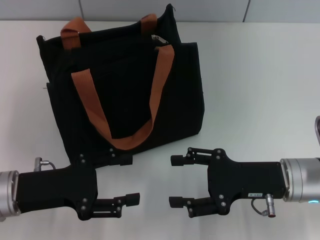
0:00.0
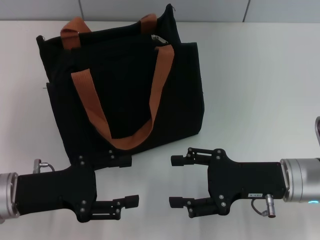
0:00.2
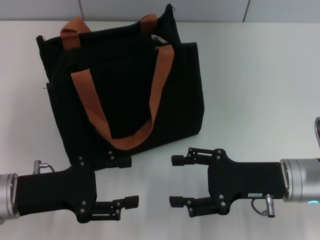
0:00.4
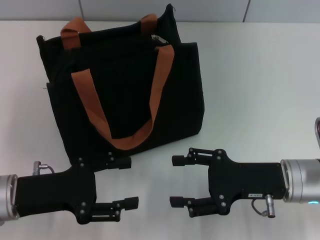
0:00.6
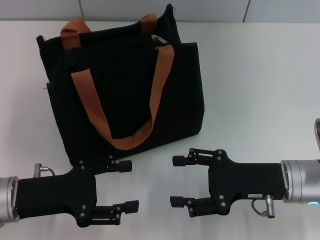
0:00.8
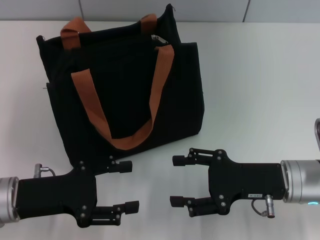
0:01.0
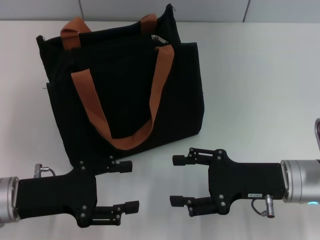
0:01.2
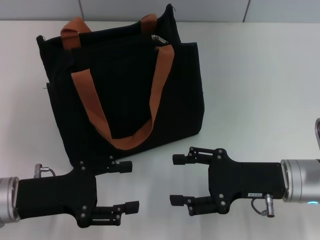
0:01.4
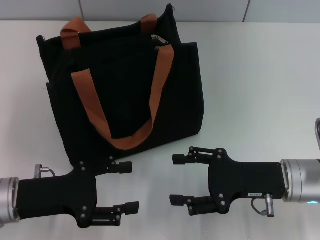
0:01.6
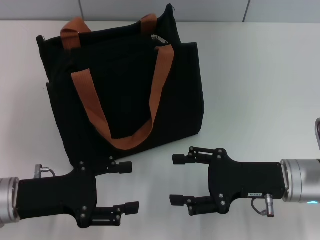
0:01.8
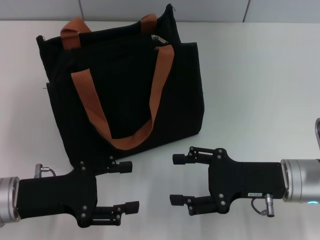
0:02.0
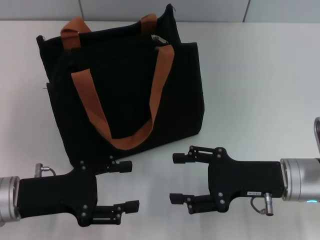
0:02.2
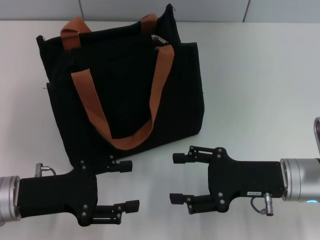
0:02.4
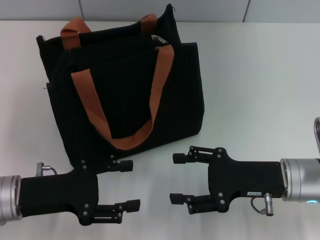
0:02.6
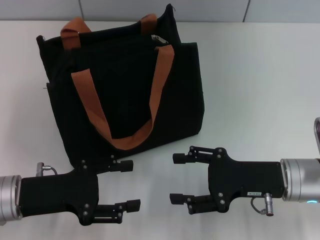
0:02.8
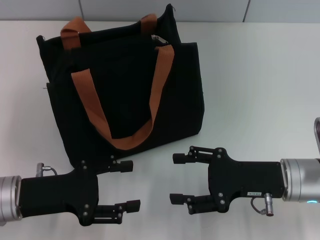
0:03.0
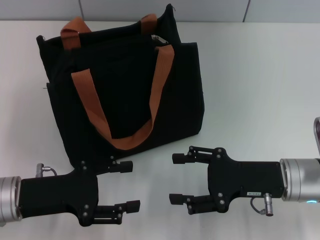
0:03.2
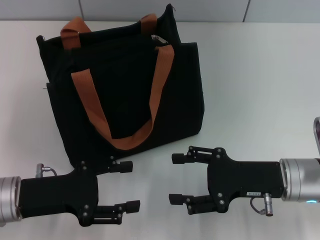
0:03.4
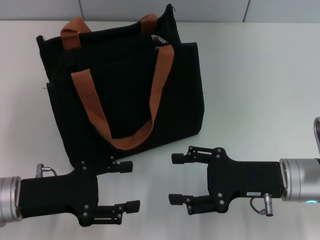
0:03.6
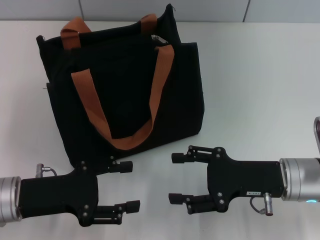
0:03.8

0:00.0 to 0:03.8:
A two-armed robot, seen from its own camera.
0:00.0 to 0:03.8: Both grippers stay about where they are.

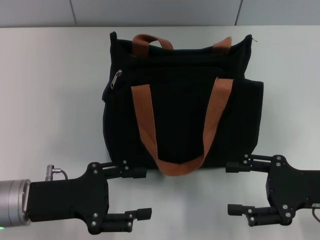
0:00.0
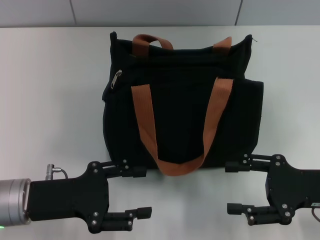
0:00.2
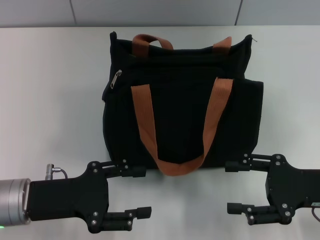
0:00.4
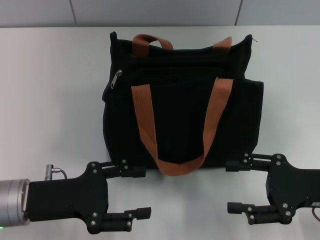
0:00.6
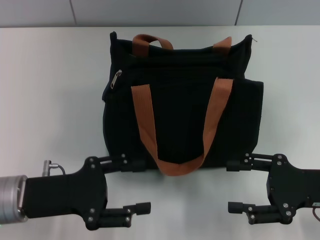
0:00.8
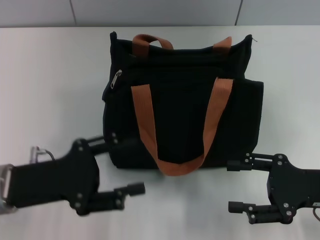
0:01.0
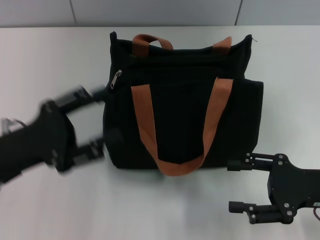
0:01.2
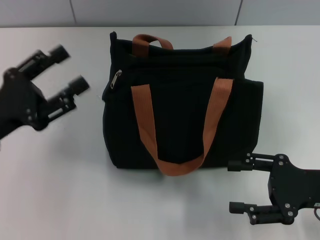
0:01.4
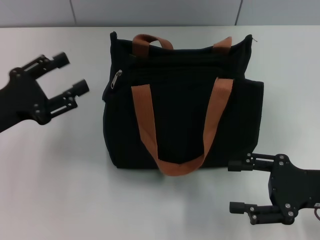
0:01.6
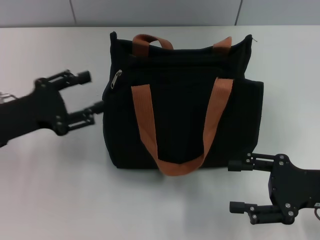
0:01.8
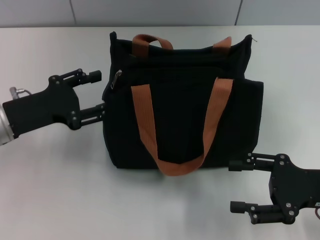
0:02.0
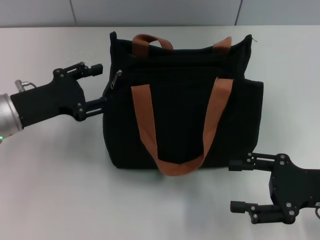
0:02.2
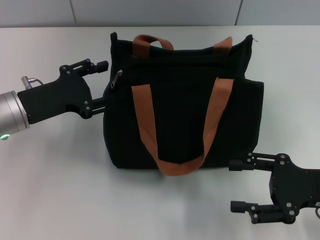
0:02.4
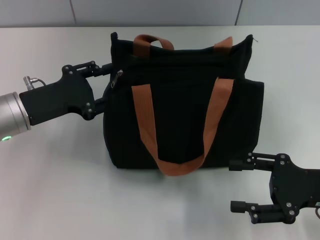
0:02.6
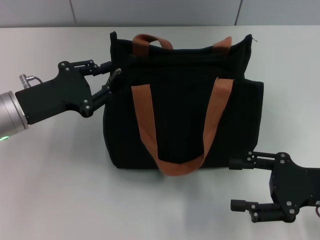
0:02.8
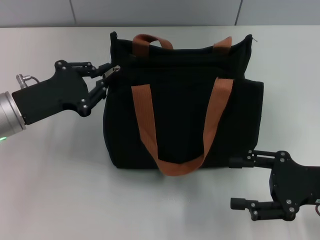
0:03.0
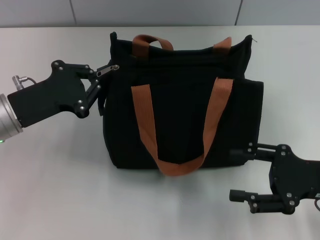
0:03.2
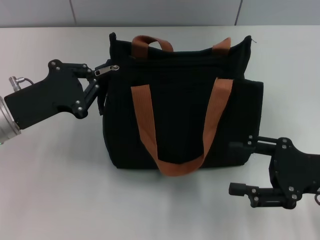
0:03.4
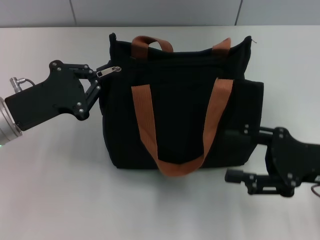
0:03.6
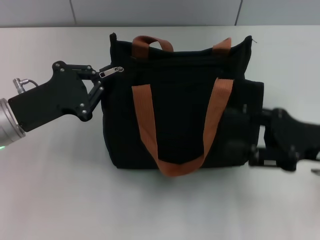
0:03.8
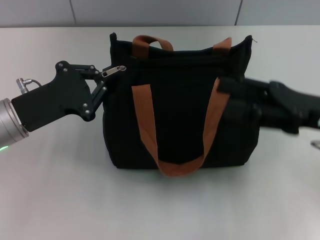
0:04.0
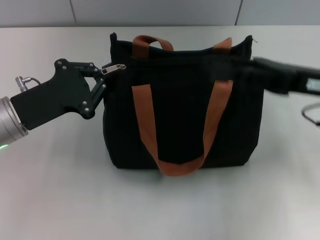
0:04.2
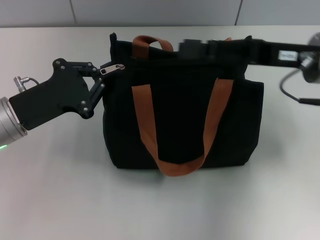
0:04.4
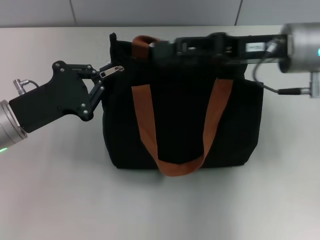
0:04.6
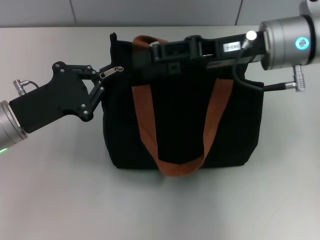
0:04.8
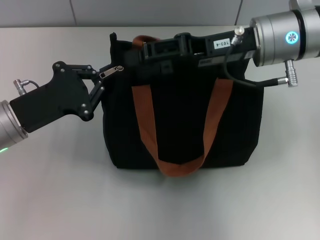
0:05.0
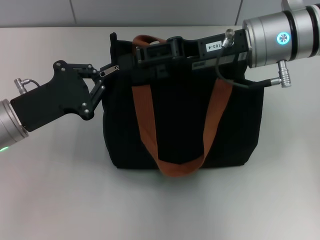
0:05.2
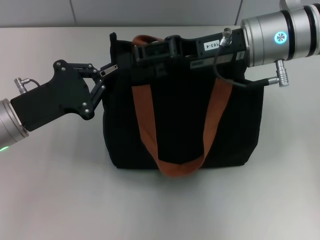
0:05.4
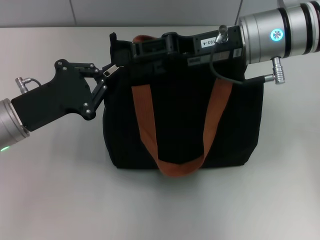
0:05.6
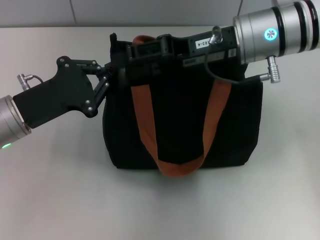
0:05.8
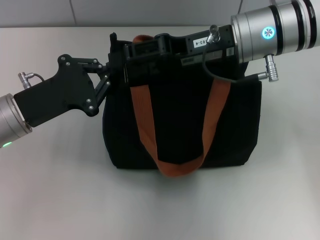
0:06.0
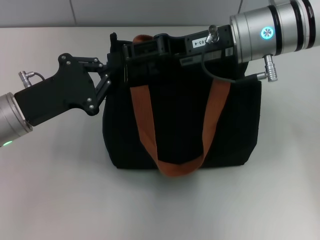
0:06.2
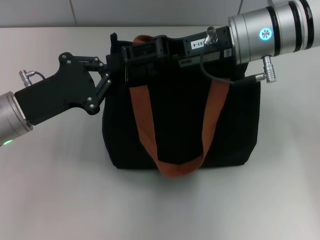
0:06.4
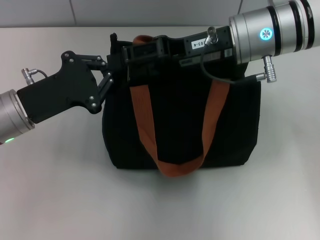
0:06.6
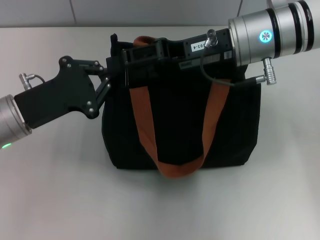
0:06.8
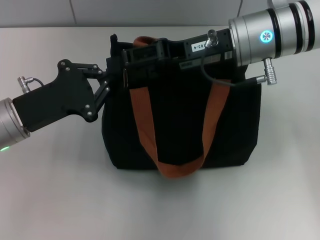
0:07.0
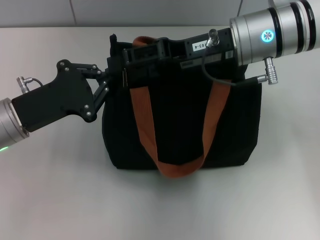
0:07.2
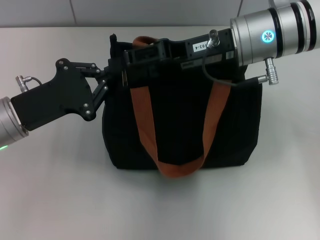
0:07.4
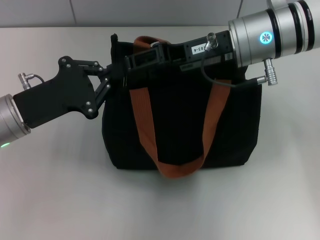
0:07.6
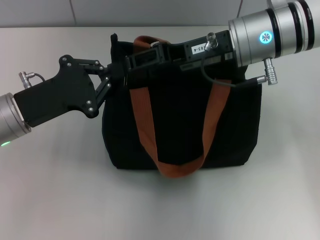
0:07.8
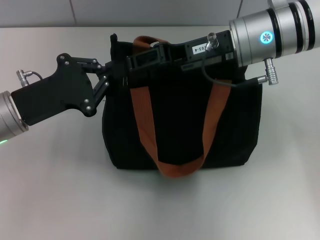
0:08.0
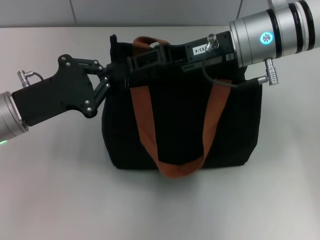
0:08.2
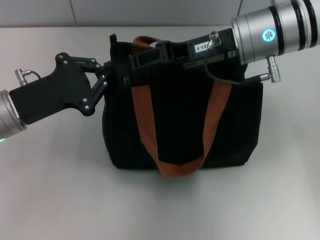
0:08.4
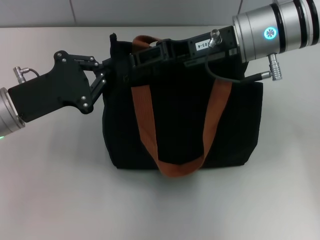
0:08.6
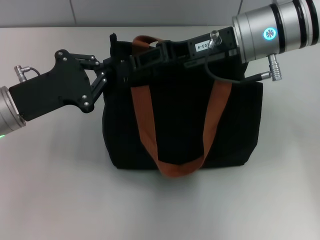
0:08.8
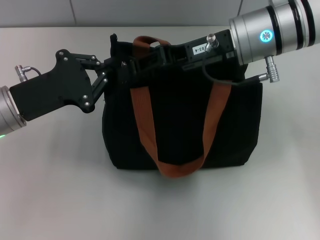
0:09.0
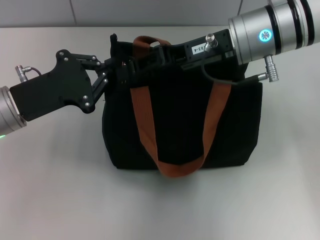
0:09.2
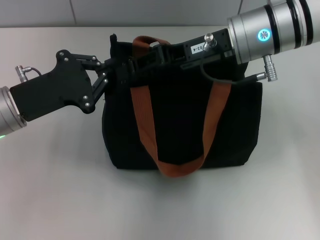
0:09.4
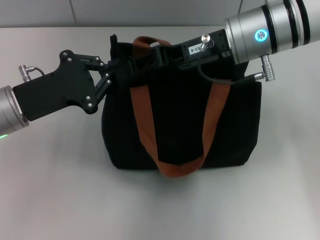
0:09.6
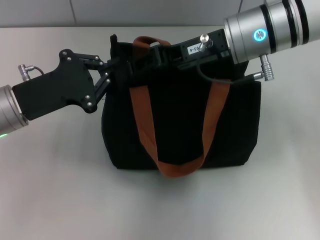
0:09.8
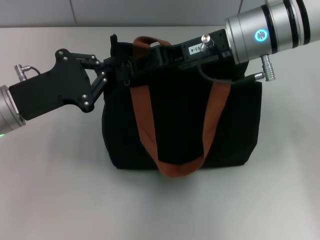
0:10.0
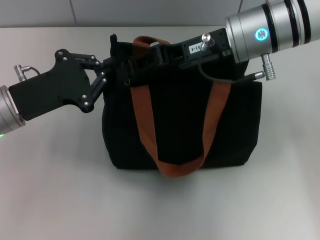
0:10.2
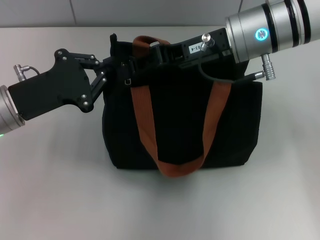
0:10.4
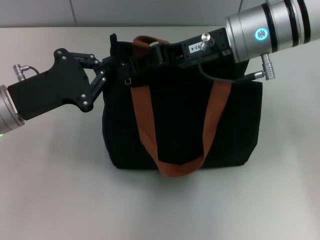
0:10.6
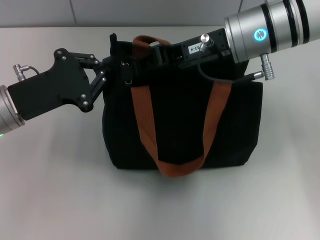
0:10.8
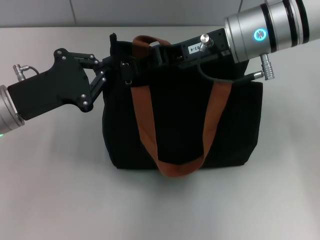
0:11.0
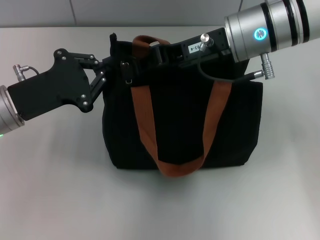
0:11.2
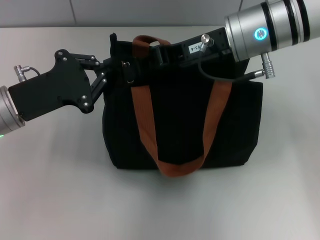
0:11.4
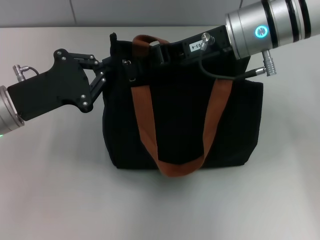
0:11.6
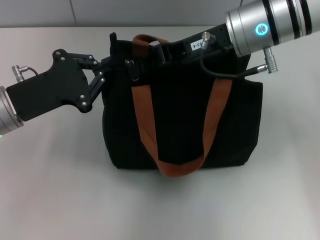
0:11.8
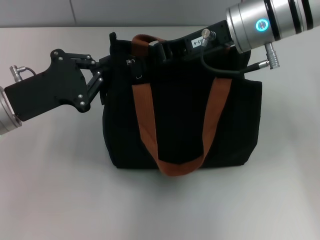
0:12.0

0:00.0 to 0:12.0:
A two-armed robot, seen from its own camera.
0:00.0 to 0:01.6: The left gripper is displaced to the left by approximately 5 cm.
0:01.6 to 0:03.0: The left gripper shifts by about 5 cm, and closes its fingers.
0:03.0 to 0:04.4: The left gripper closes, while the right gripper travels forward, upward and to the left by some 15 cm.
0:04.4 to 0:06.0: The right gripper shifts roughly 10 cm to the left.
0:06.0 to 0:07.6: Both grippers stay put.
0:07.6 to 0:09.0: Both grippers stay put.
0:09.0 to 0:10.4: Both grippers stay put.
0:10.4 to 0:12.0: The right gripper closes up.

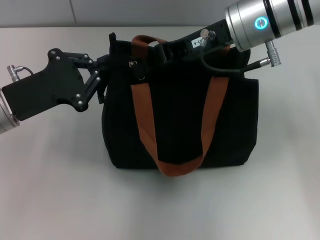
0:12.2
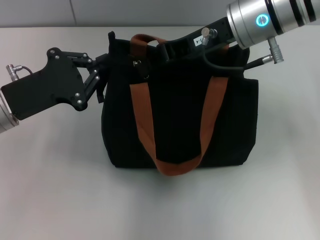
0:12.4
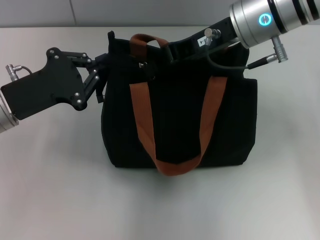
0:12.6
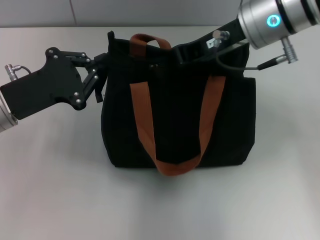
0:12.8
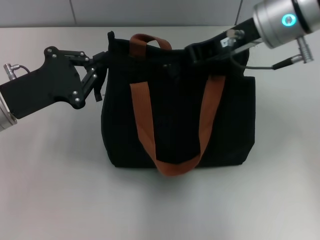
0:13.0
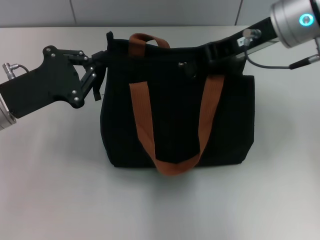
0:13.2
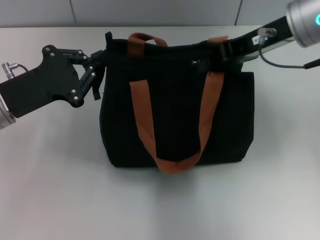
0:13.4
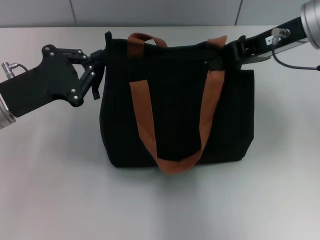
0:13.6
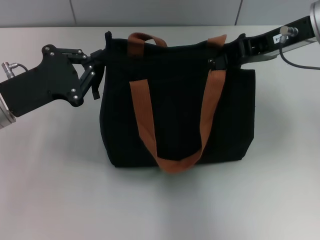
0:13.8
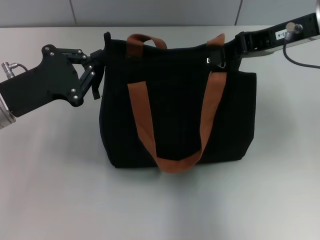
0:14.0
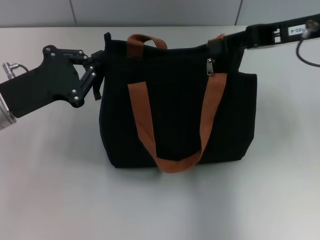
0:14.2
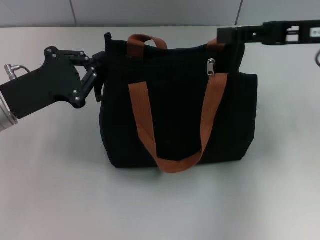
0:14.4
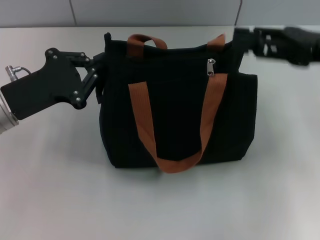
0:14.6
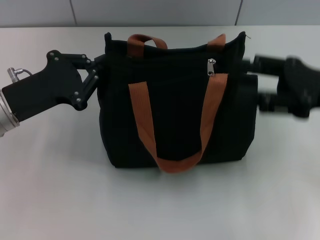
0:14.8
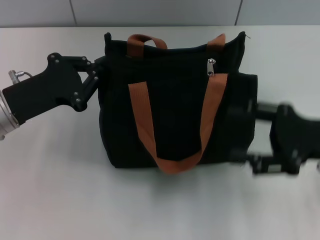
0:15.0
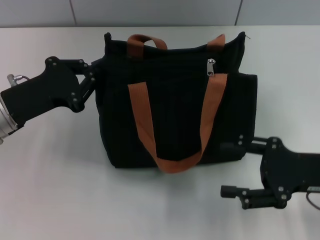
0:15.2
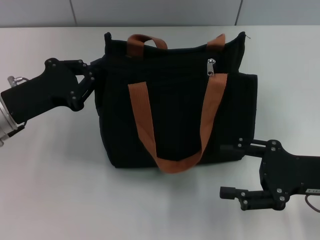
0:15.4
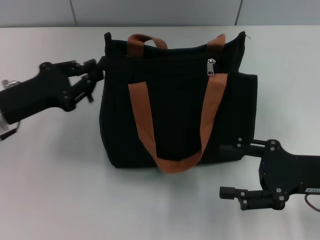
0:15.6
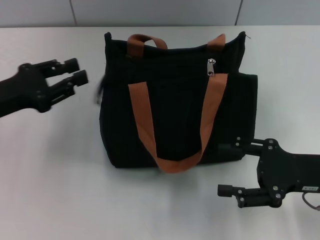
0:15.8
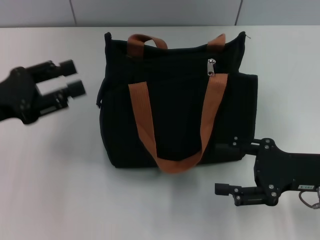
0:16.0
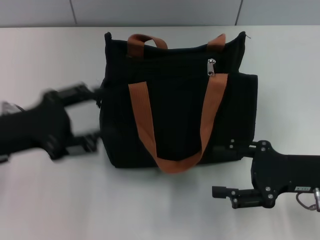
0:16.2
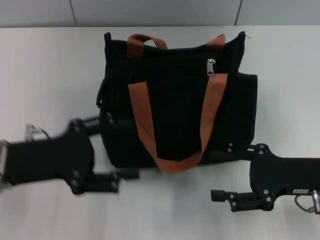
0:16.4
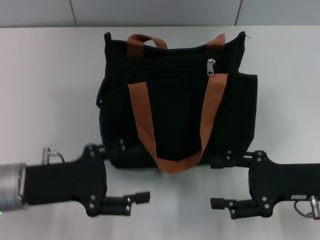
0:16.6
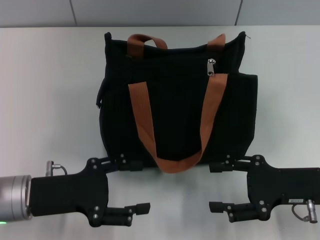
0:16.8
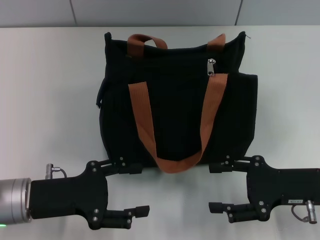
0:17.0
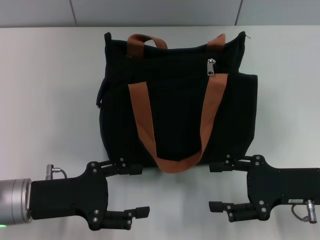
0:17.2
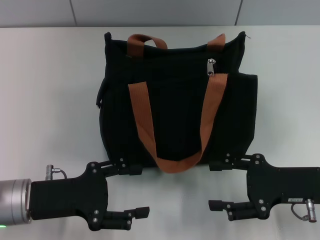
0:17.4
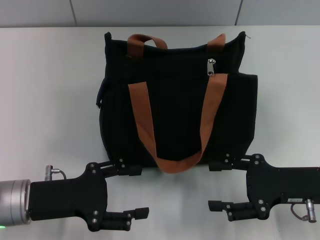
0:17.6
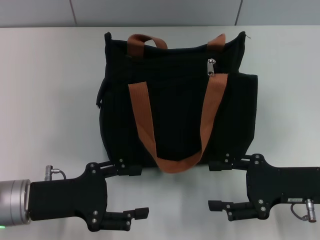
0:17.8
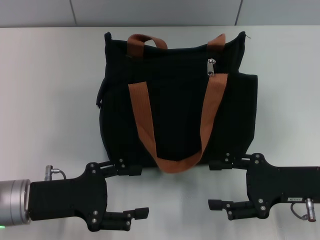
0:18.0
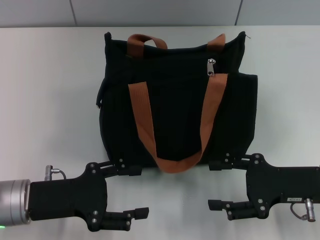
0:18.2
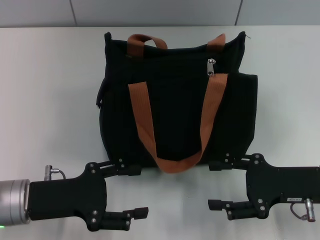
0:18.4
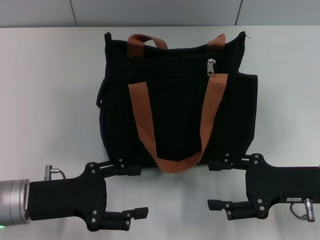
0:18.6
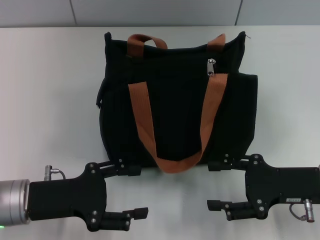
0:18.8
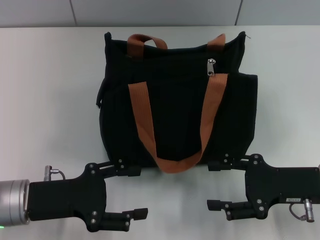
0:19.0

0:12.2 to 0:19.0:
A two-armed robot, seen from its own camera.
0:12.2 to 0:13.6: The right gripper travels to the right by roughly 10 cm.
0:13.6 to 0:15.0: The right gripper moves downward, backward and to the right, roughly 20 cm, and opens its fingers.
0:15.0 to 0:16.2: The left gripper opens its fingers.
0:16.2 to 0:17.6: The left gripper travels downward by some 5 cm, and opens.
0:17.6 to 0:19.0: Both grippers stay about where they are.
